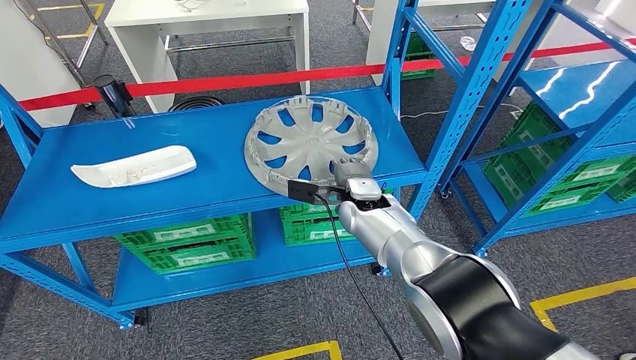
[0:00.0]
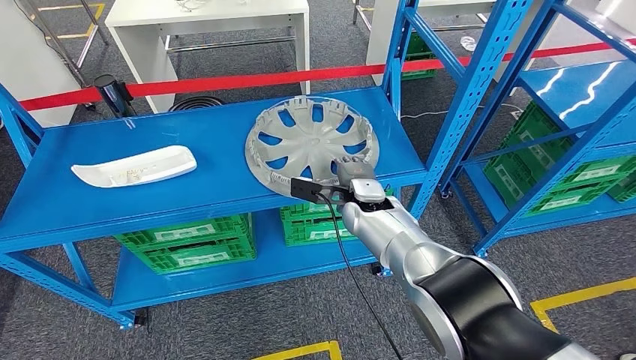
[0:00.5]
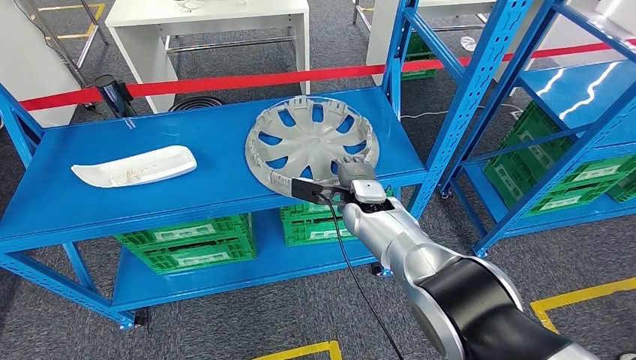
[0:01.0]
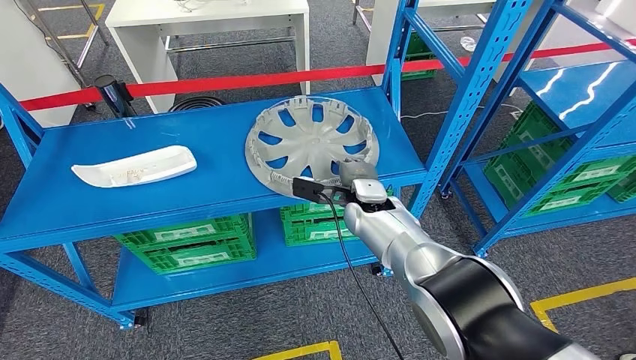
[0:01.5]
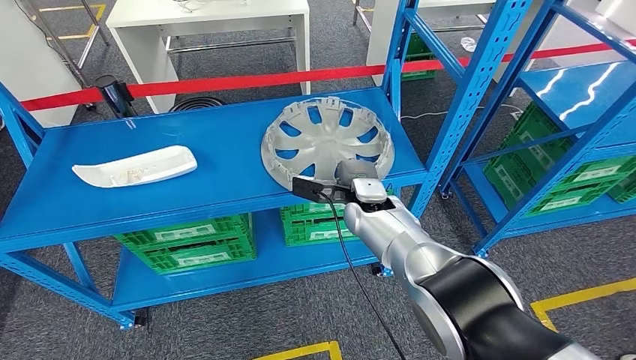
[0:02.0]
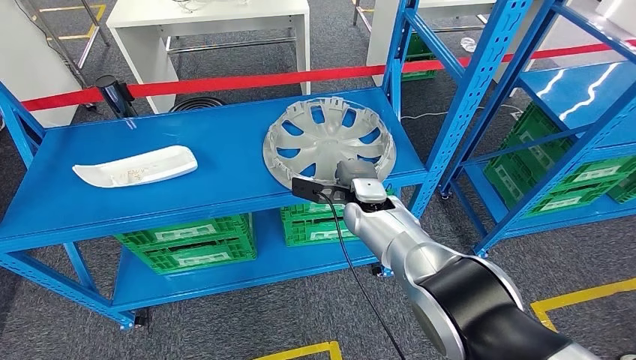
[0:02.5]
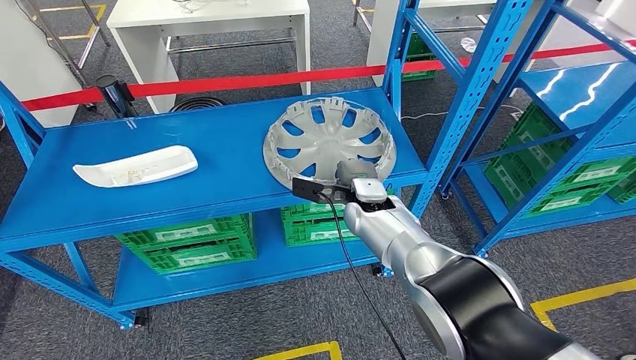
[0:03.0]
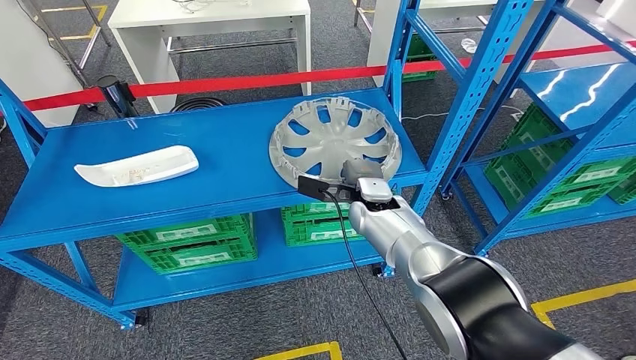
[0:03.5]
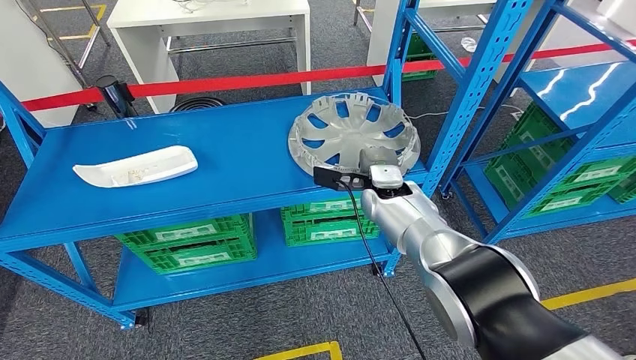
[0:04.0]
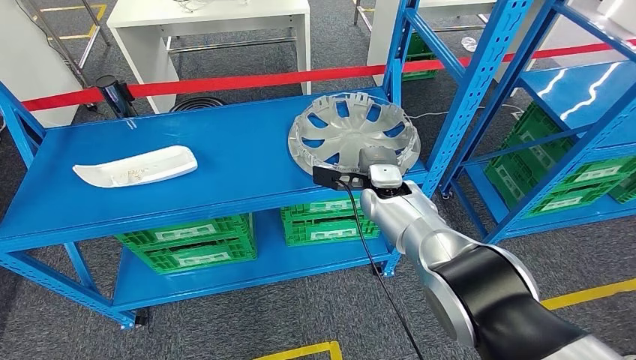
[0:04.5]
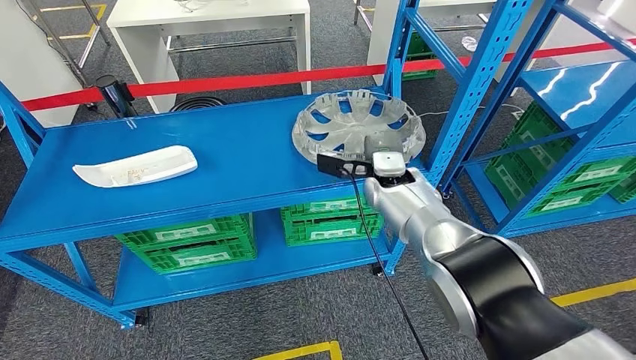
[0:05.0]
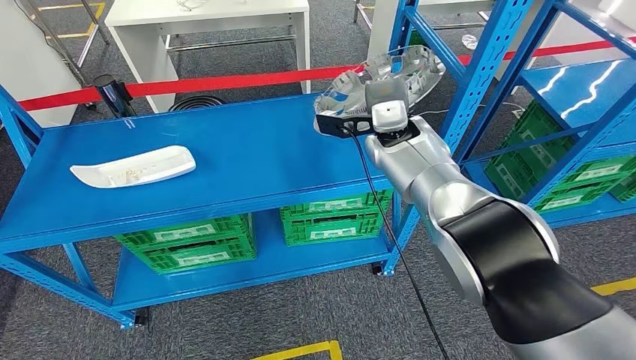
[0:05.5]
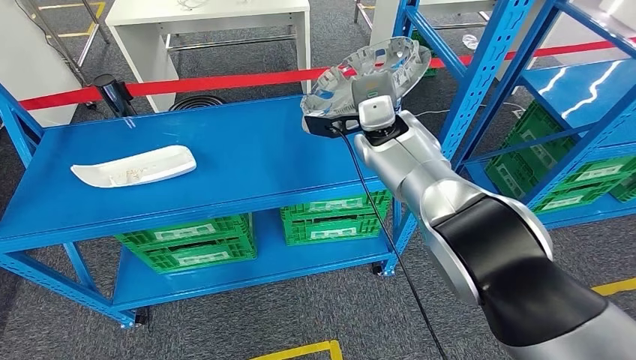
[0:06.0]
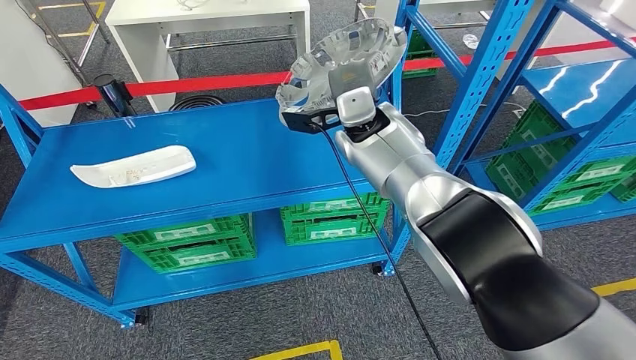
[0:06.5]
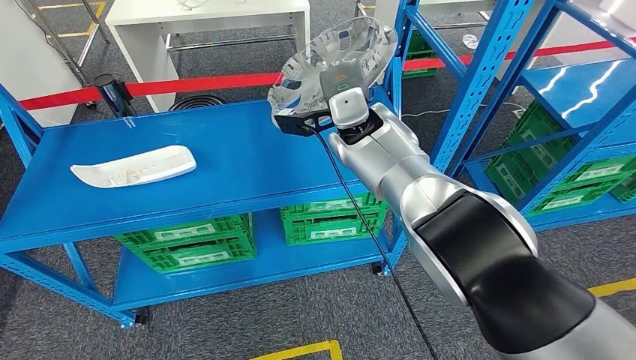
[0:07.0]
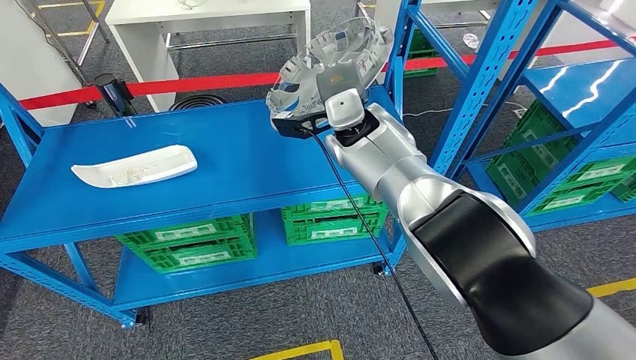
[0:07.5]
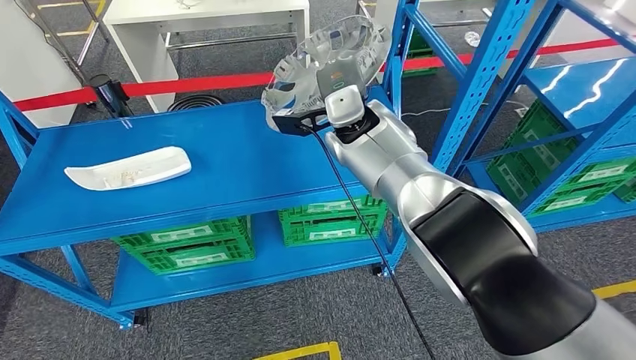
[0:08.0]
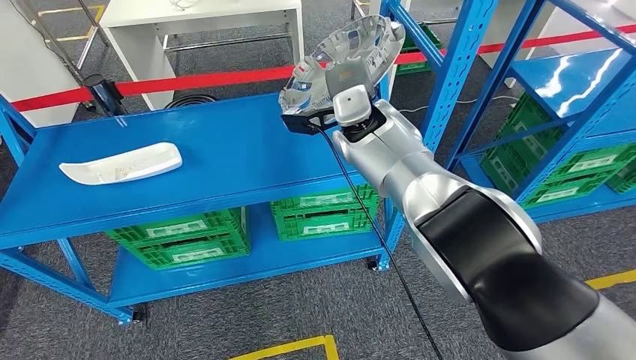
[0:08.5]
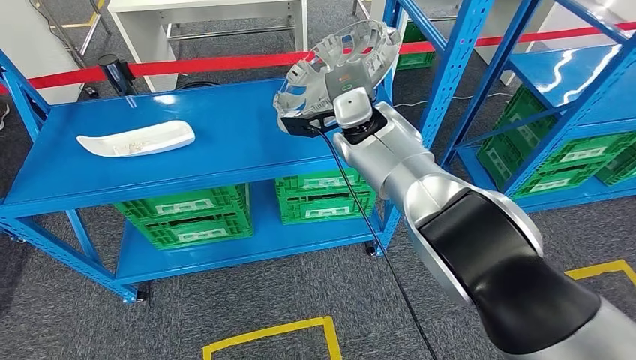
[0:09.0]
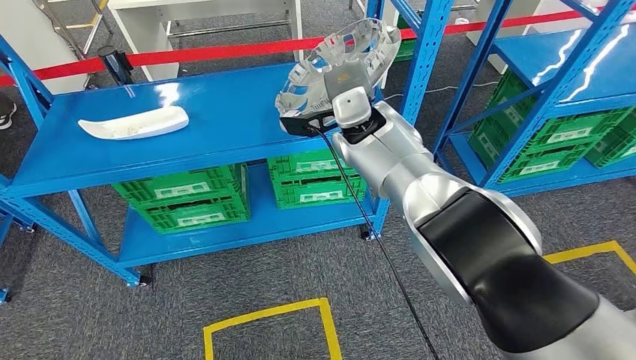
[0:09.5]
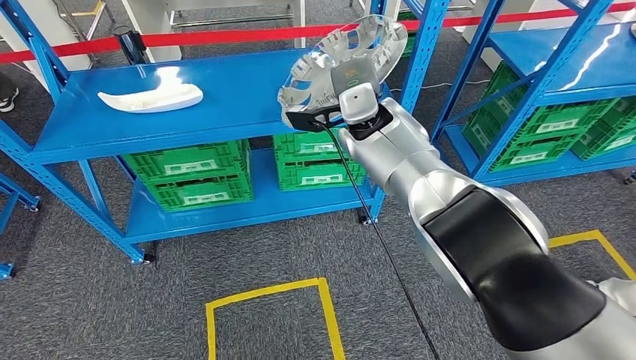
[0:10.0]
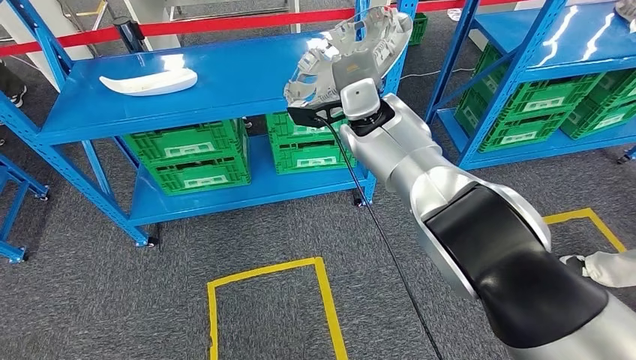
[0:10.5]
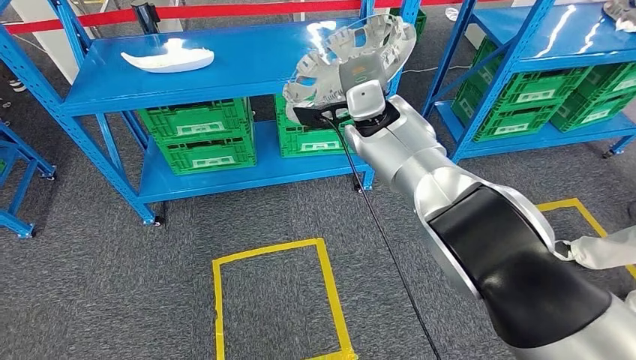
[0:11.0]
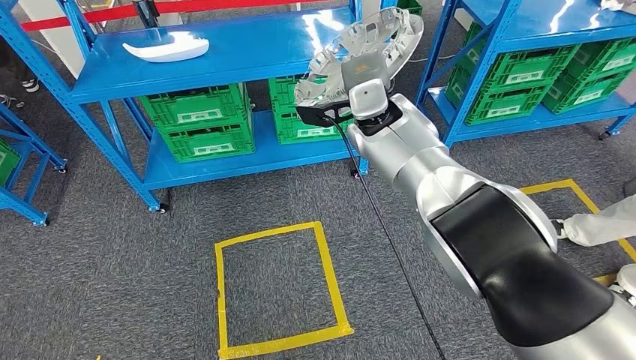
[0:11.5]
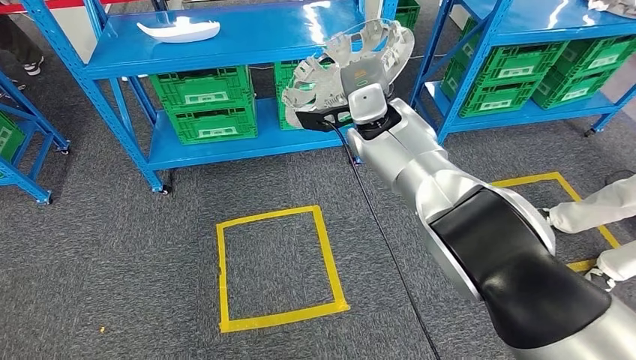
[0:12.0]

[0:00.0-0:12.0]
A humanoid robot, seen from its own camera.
Step, 0:00.0 to 0:06.5: Pick up the small component from the shelf.
0:00.0 to 0:02.0: Neither hand changes place.
0:02.0 to 0:04.0: The hands stay close to where they were, moving slightly.
0:06.0 to 0:08.0: The right hand shifts by about 5 cm.

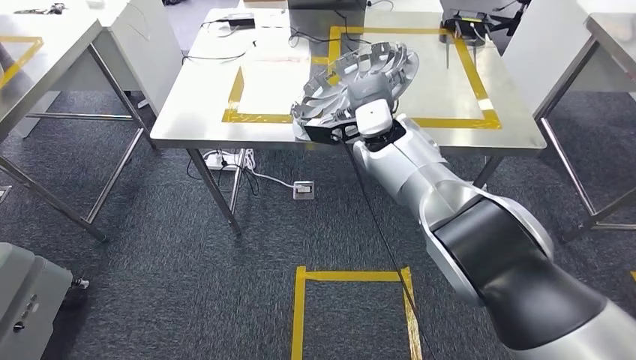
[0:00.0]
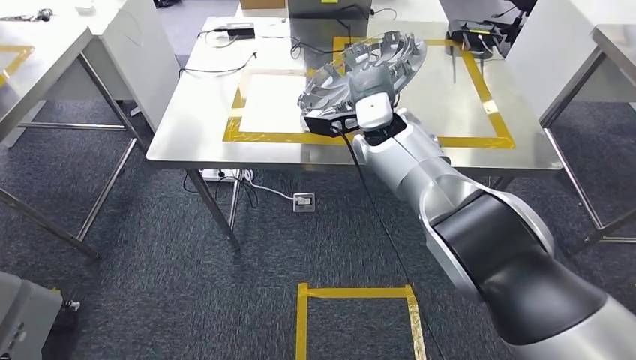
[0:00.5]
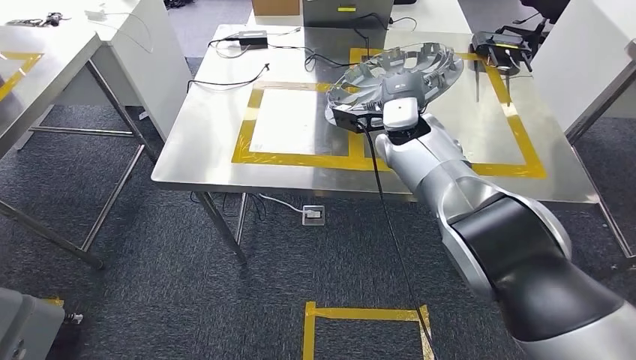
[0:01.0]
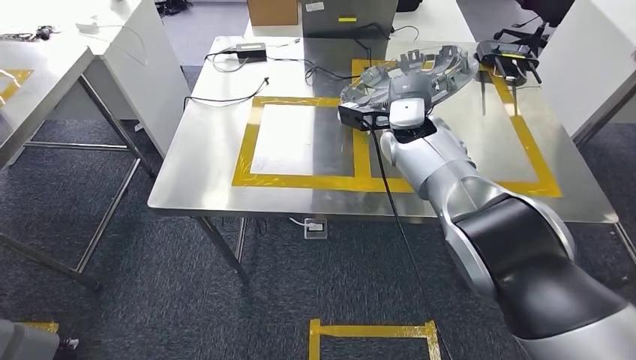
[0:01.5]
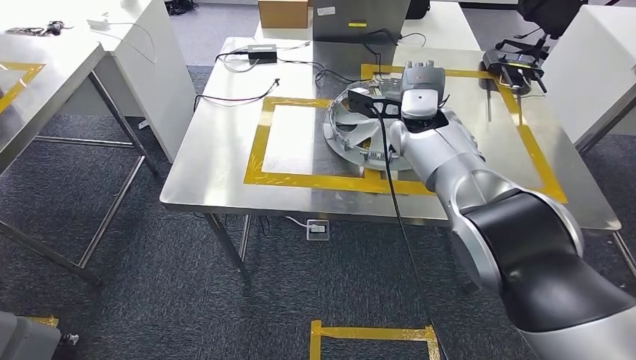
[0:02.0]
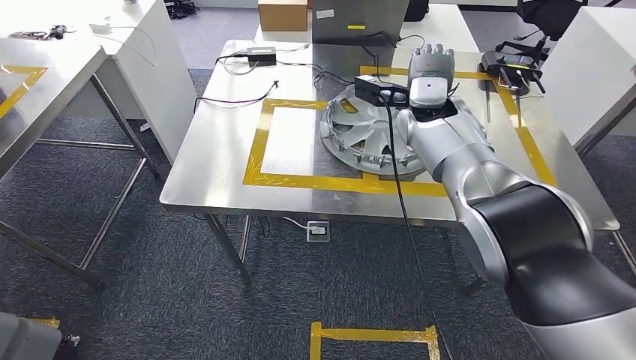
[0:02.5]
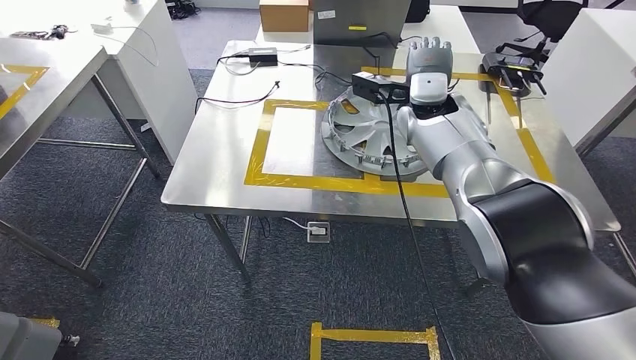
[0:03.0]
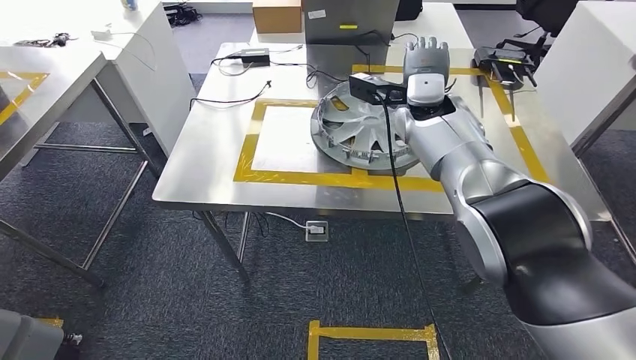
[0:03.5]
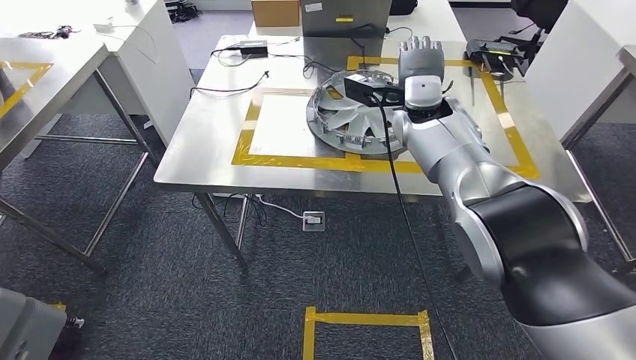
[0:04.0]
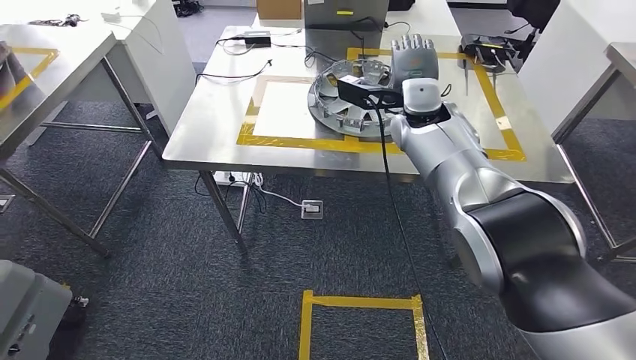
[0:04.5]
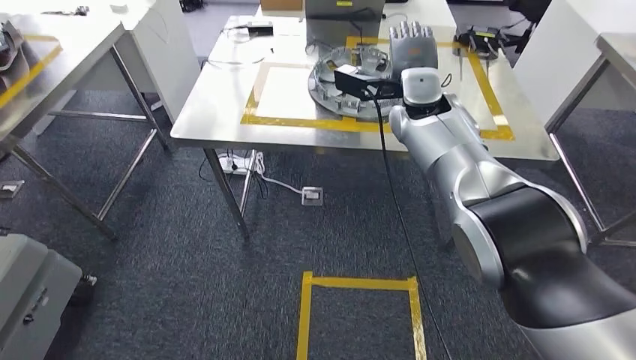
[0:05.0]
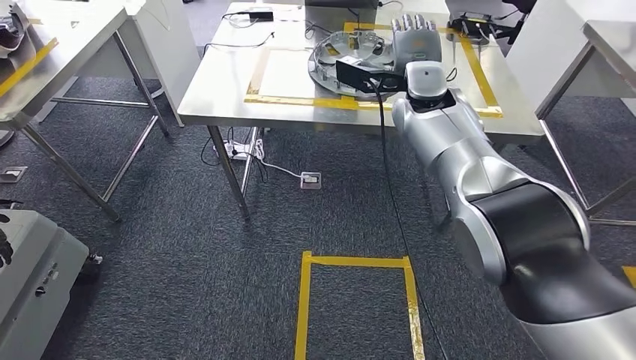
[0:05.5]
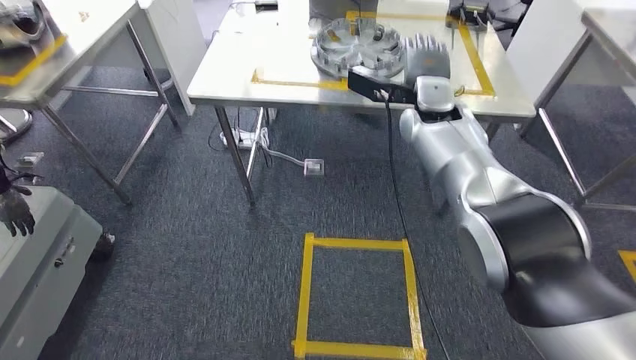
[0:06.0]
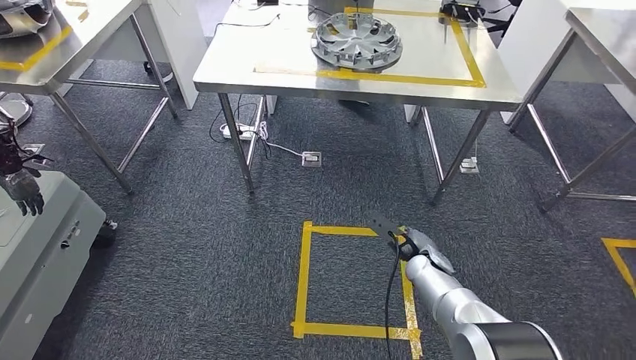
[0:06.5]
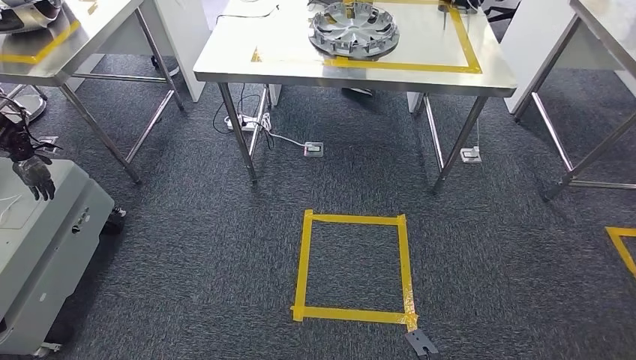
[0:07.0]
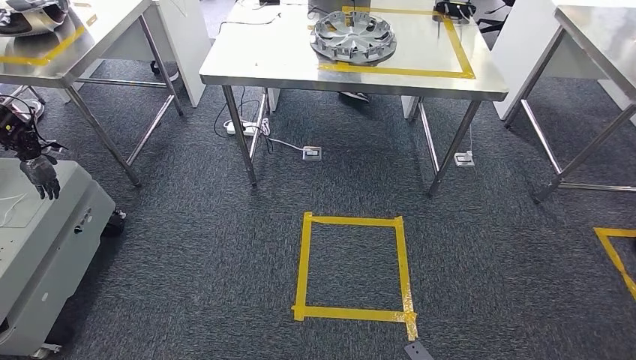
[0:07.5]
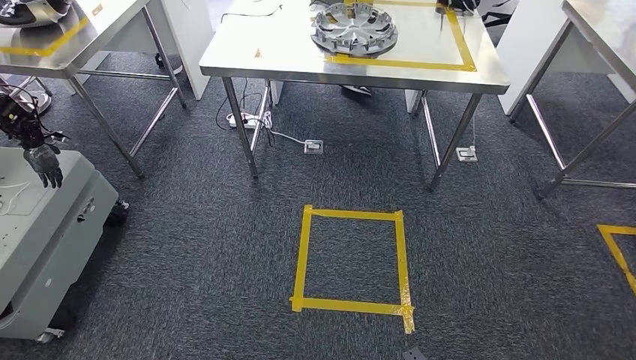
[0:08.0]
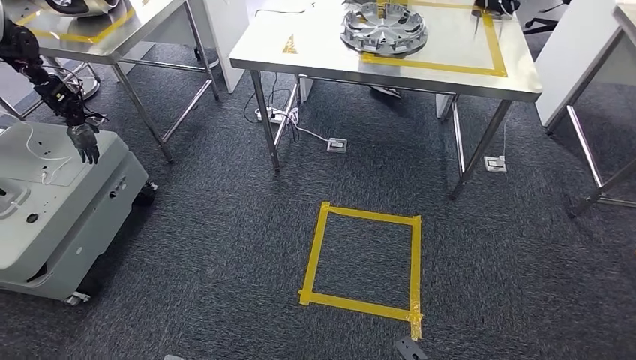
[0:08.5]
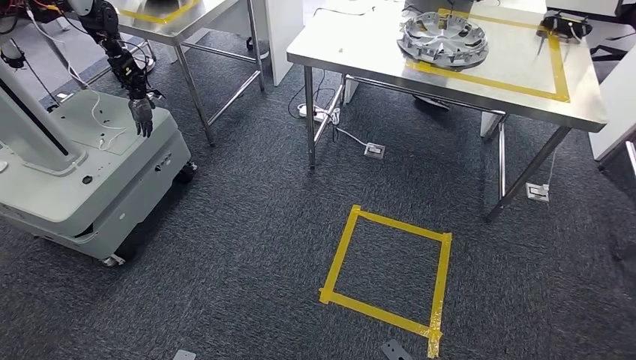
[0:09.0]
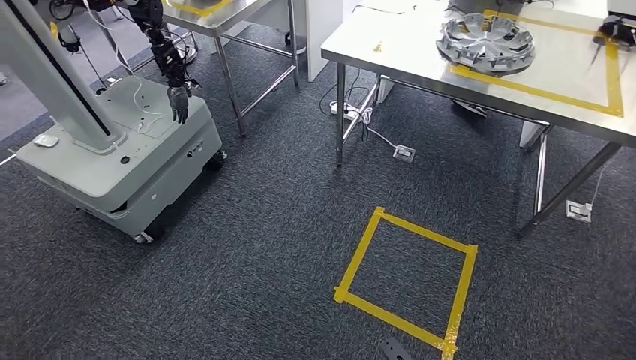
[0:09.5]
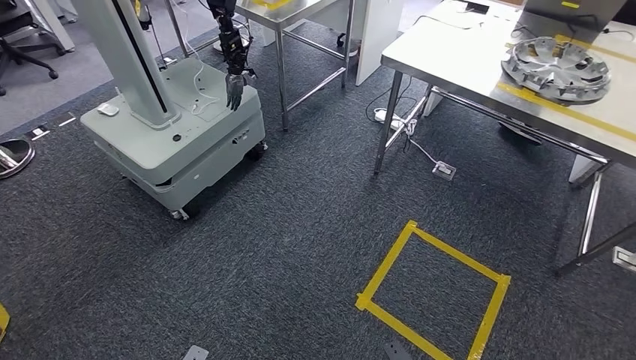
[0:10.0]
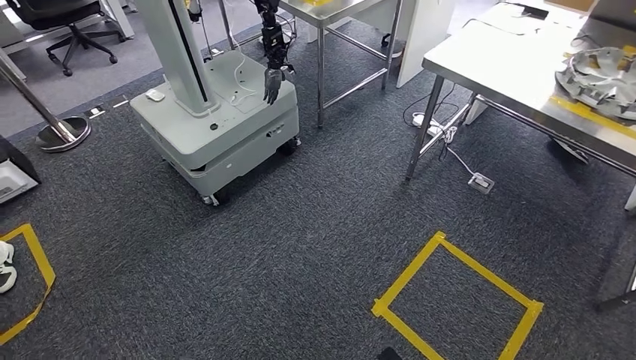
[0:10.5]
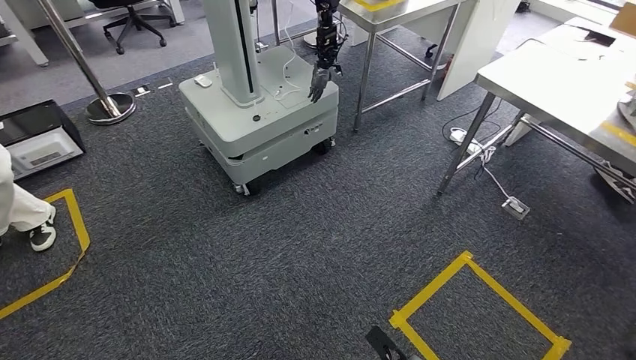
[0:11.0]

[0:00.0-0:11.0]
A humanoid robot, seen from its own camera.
Step, 0:01.5 to 0:04.5: Insert the small component into the corresponding slot on the workbench.
